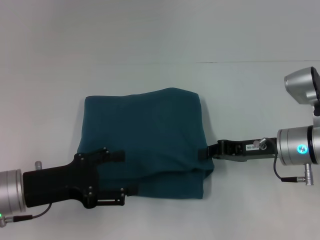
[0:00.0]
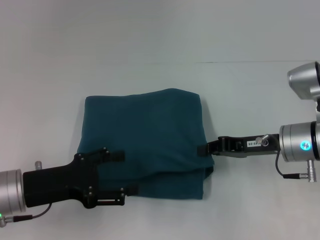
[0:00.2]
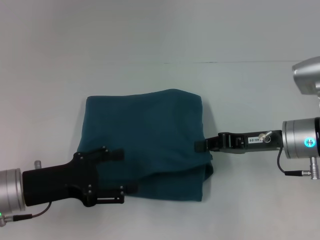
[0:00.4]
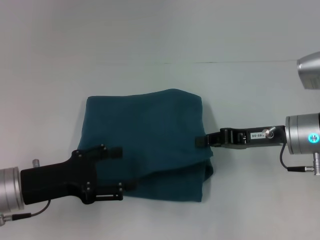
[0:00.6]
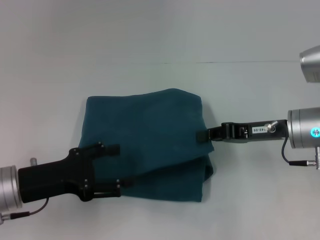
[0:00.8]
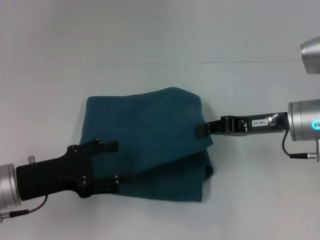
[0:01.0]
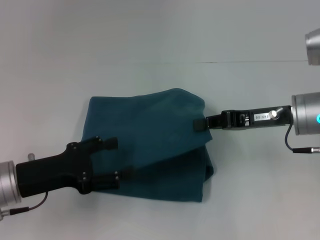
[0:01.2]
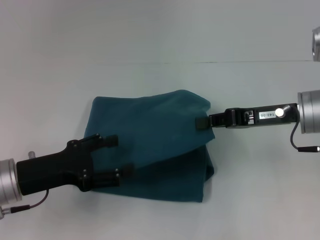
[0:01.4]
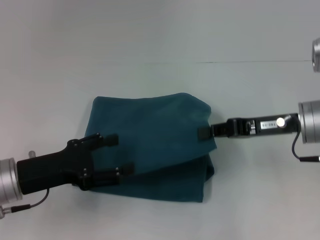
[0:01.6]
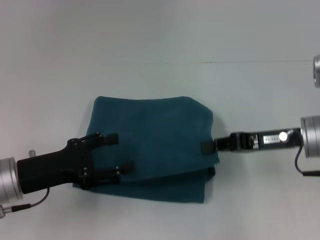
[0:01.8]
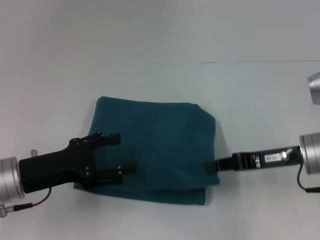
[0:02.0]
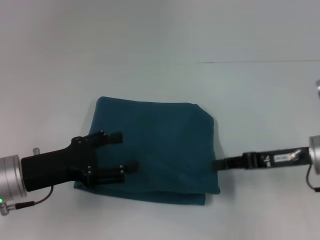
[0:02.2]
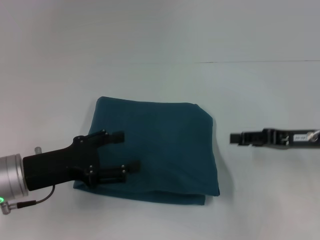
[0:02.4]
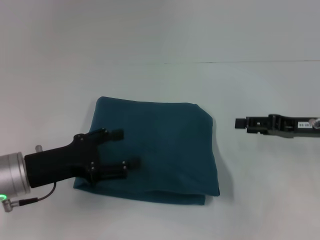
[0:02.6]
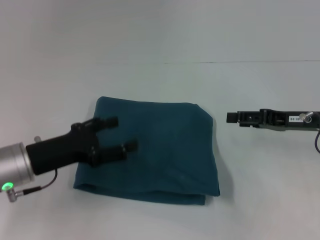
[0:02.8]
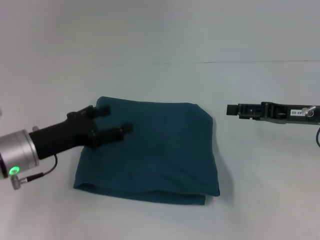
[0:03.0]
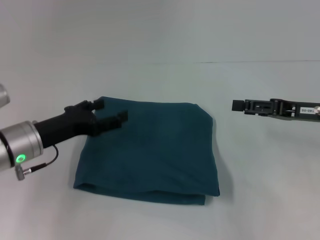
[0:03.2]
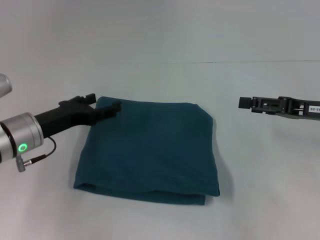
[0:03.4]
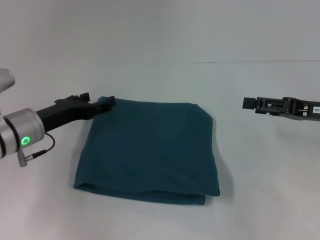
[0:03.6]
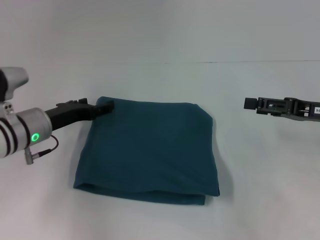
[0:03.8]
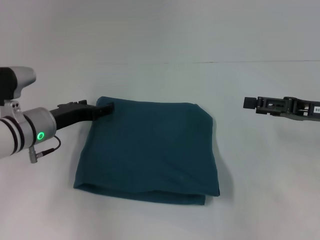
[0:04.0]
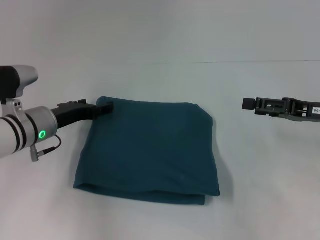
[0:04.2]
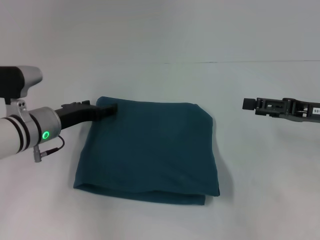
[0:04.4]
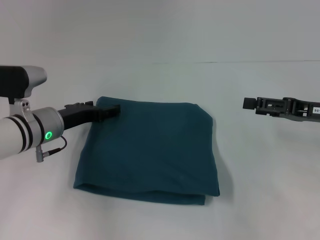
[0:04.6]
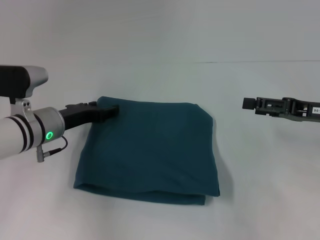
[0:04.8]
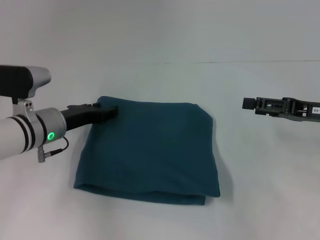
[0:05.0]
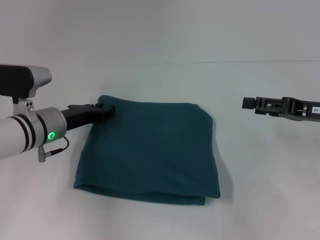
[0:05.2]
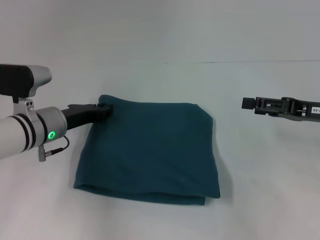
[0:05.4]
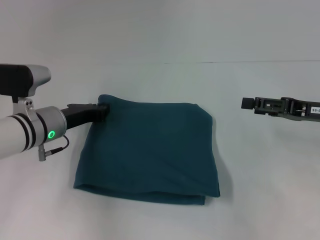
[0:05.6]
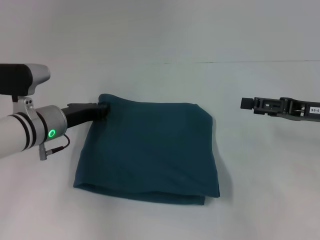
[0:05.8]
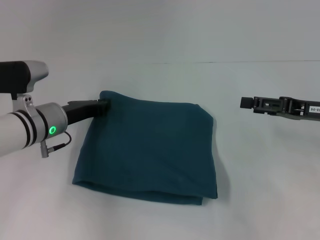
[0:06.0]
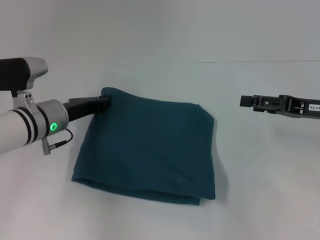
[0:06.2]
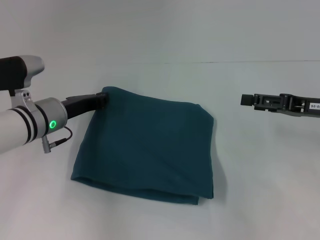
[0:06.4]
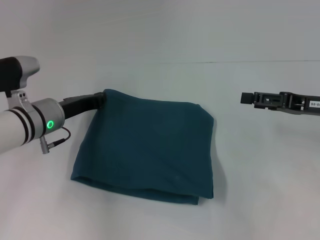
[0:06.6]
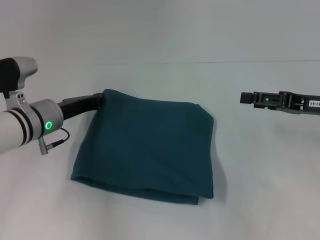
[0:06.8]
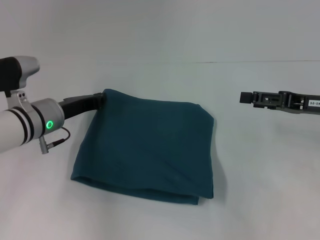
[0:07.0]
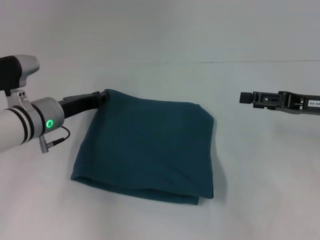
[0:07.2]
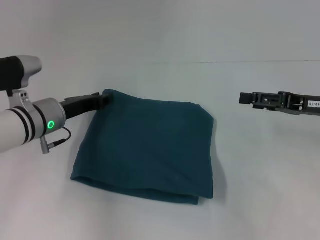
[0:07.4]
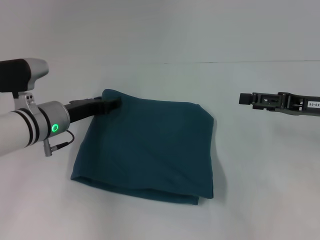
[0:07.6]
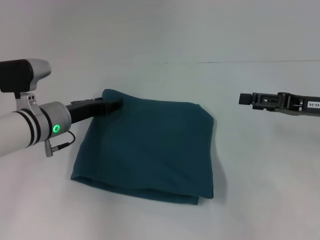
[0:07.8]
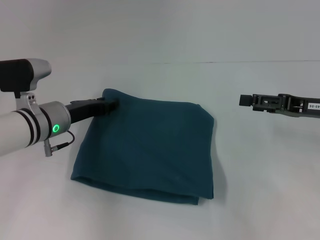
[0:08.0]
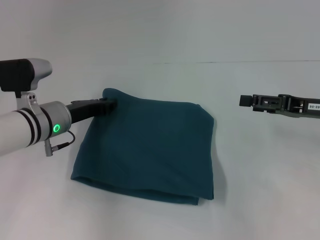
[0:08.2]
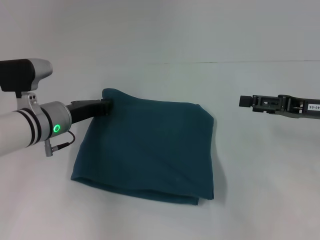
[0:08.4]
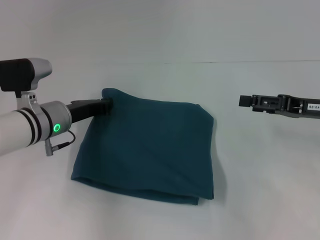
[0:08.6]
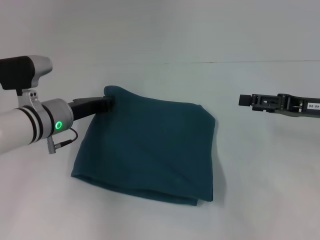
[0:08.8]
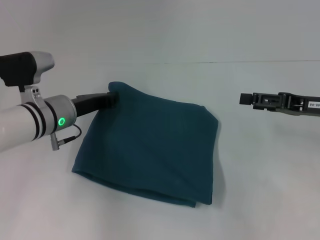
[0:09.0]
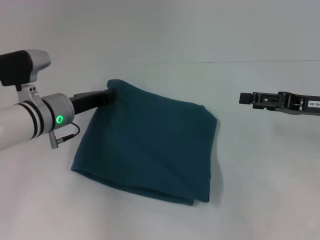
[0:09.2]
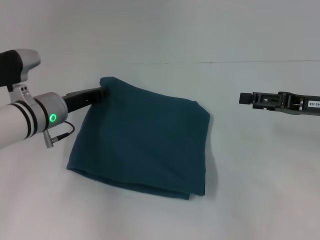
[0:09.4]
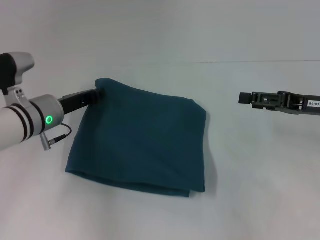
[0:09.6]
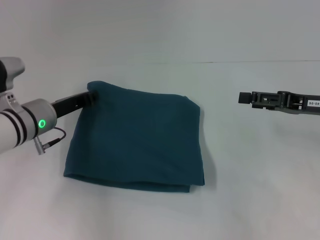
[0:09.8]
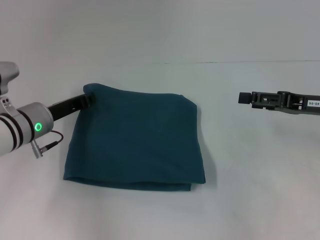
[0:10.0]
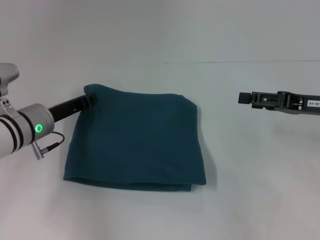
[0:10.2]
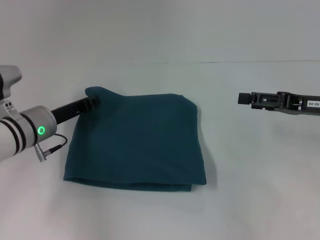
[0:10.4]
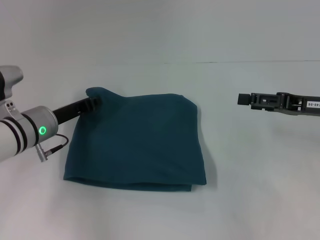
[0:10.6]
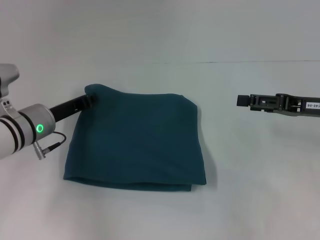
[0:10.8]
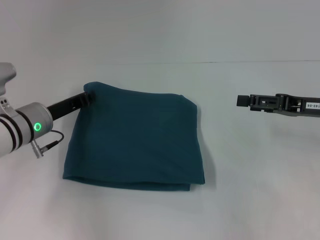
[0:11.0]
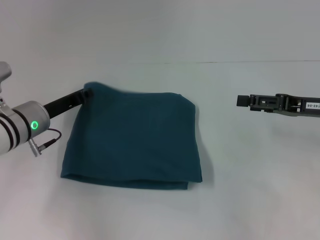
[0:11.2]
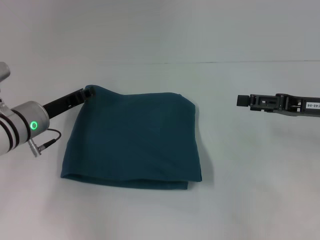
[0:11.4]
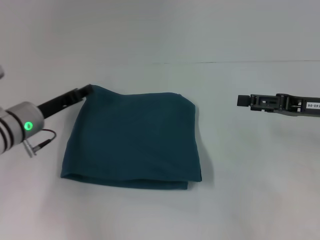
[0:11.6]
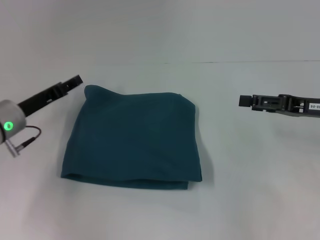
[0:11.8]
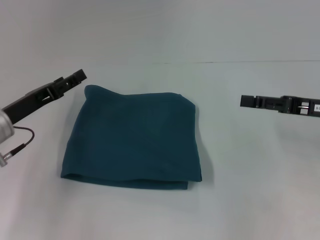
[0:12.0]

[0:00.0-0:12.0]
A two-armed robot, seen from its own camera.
0:00.0 to 0:01.6: The right gripper heads upward, covering roughly 5 cm.
0:01.6 to 0:03.0: The right gripper moves to the right, roughly 5 cm, and opens up.
0:03.0 to 0:04.4: The left gripper travels forward by about 5 cm.
0:04.4 to 0:06.0: The left gripper closes up.
0:06.0 to 0:07.6: The left gripper opens its fingers.
0:07.6 to 0:09.0: The left gripper closes its fingers.
0:09.0 to 0:10.4: There are only small adjustments of the grippers.
0:10.4 to 0:12.0: The left gripper moves about 5 cm, and opens up.

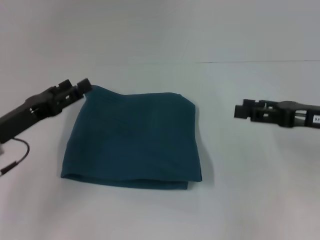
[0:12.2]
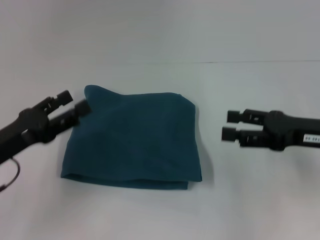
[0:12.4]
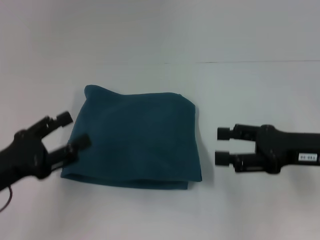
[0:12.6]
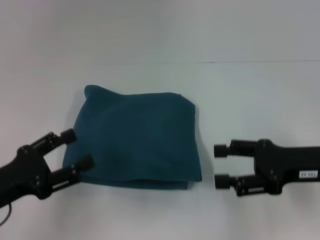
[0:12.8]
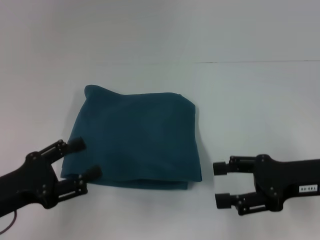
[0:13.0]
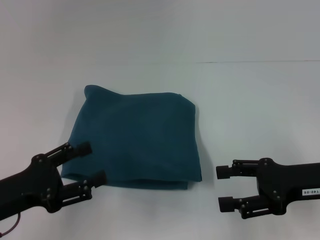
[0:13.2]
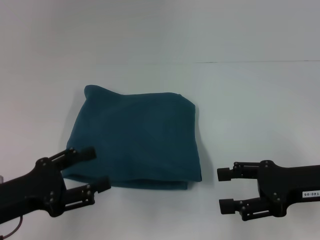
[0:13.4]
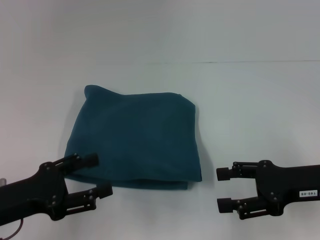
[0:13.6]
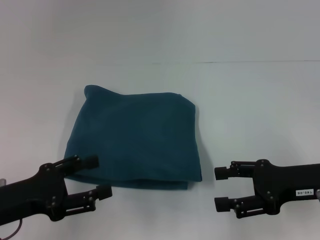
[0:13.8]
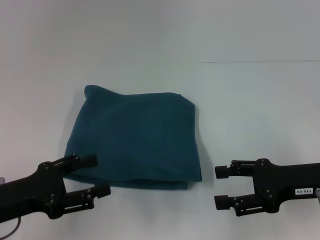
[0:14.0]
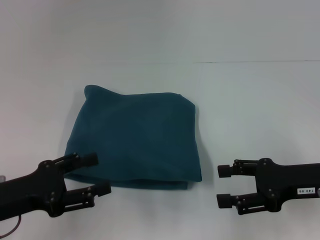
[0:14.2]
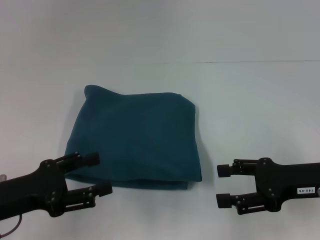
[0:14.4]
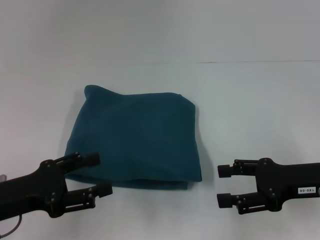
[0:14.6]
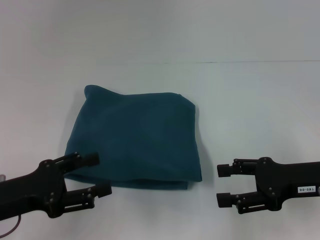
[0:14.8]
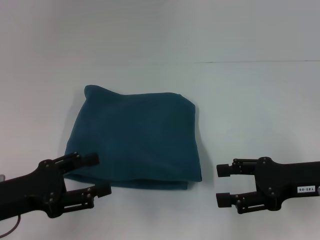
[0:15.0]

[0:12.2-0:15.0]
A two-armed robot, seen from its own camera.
0:12.2 to 0:13.6: The right gripper ends up some 5 cm from where it was. The left gripper heads backward, covering some 10 cm.
0:13.6 to 0:15.0: The two grippers keep their place.

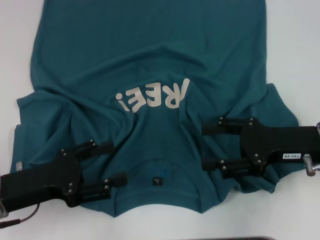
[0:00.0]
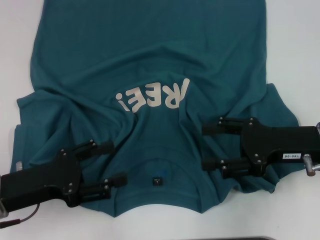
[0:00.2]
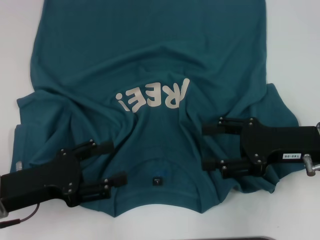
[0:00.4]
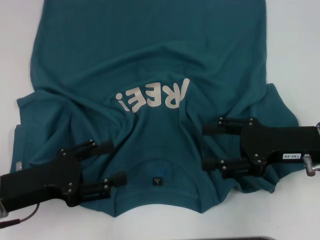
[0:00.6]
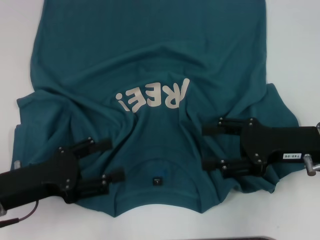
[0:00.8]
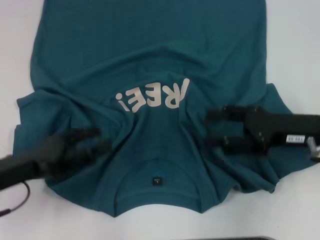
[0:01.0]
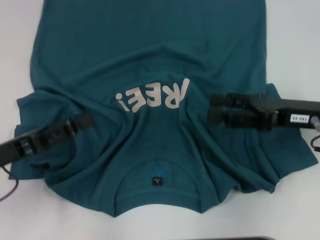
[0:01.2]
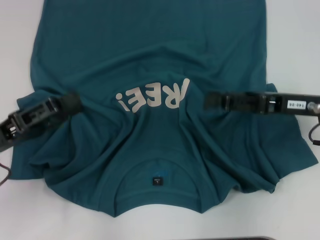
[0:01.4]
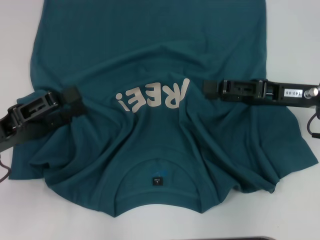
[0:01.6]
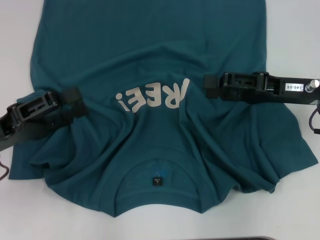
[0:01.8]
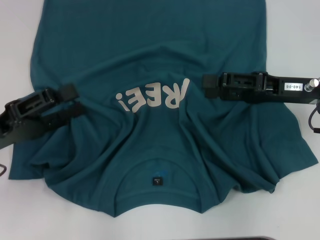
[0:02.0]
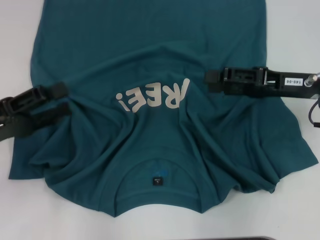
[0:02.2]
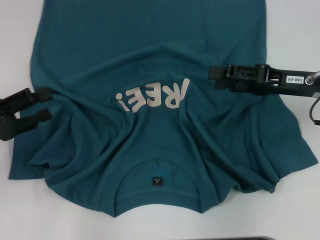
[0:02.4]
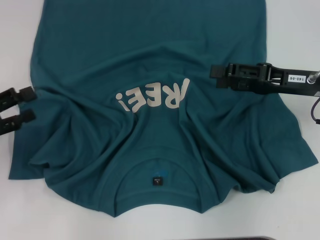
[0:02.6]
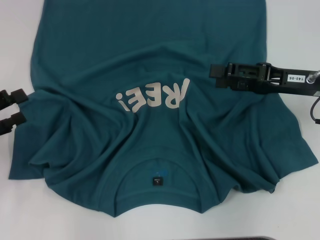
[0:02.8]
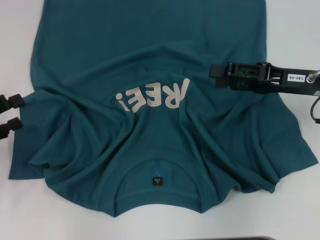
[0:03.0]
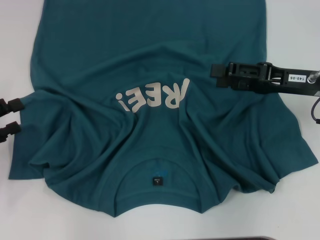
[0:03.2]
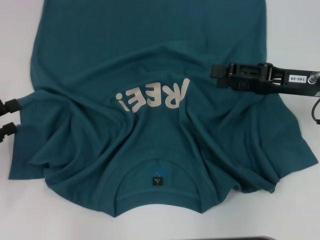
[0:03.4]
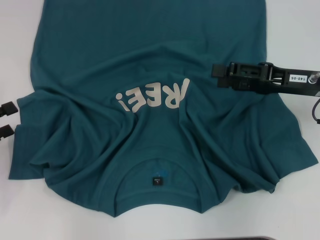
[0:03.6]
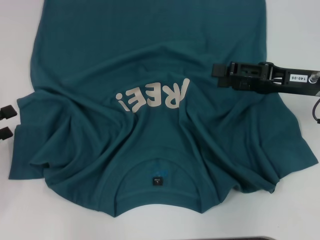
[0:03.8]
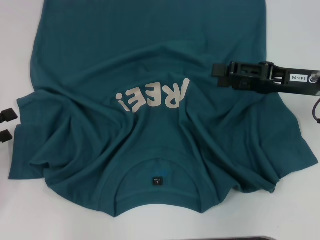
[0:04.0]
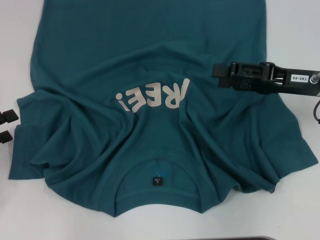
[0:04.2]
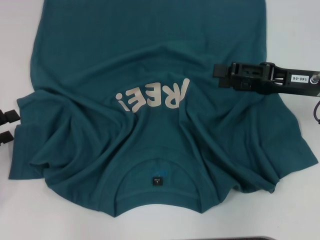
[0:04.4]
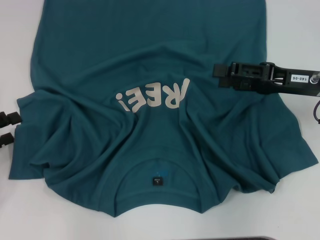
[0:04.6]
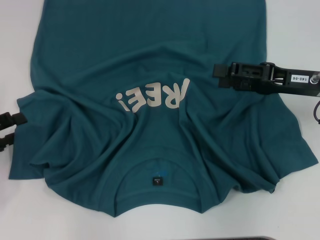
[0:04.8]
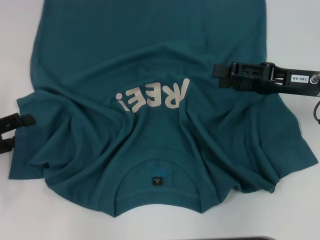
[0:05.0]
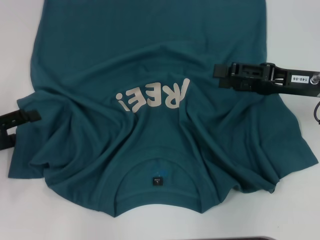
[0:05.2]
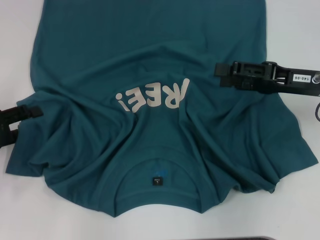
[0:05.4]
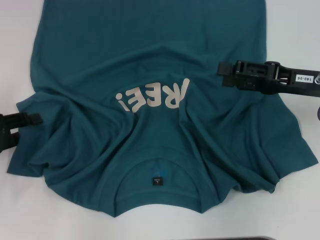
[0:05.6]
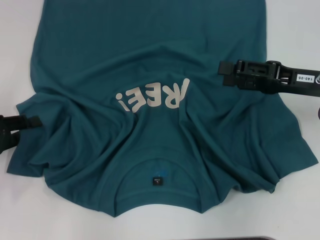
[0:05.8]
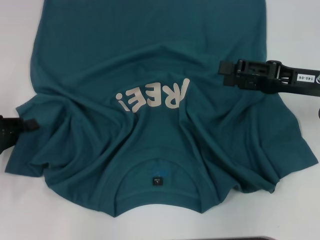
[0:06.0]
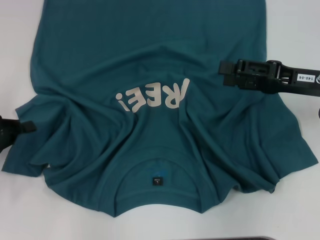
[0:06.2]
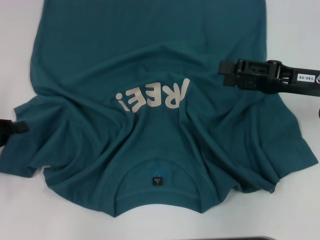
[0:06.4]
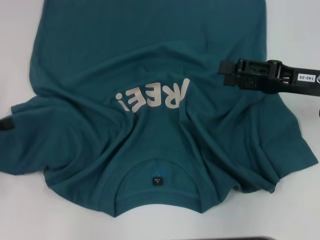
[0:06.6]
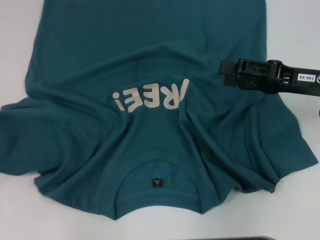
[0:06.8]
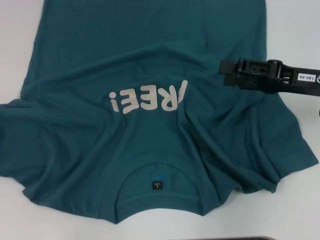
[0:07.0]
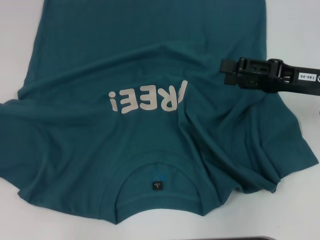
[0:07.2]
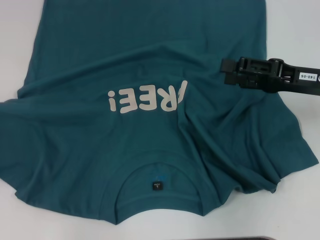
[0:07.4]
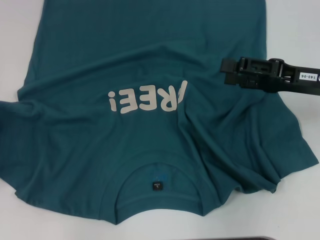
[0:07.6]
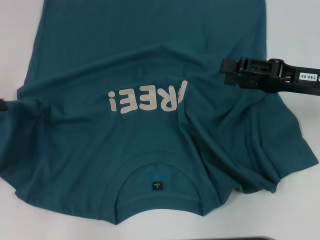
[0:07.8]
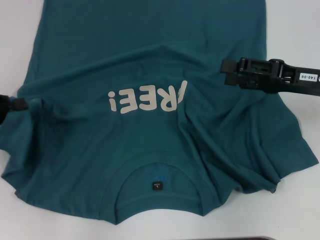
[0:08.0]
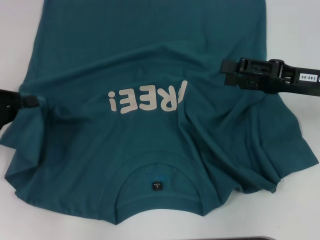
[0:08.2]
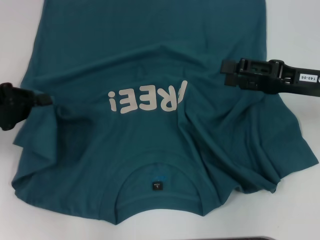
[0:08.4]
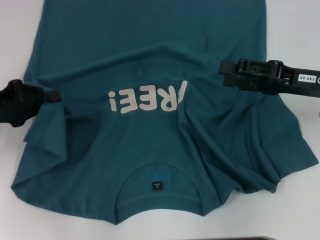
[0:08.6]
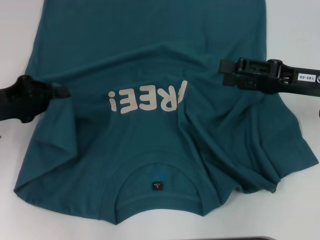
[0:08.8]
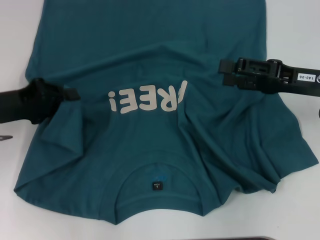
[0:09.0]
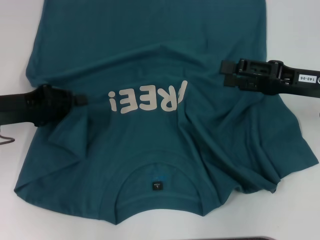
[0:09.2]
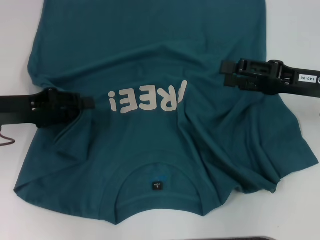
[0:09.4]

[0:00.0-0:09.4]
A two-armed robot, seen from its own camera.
0:00.0 to 0:01.6: The left gripper moves roughly 5 cm.
0:01.6 to 0:03.2: The left gripper is displaced to the left by some 10 cm.
0:03.2 to 0:04.8: The grippers make only small movements.
0:04.8 to 0:06.2: The left gripper closes up.
0:06.2 to 0:07.8: The left gripper shifts by about 5 cm.
0:07.8 to 0:09.4: The left gripper shifts some 10 cm to the right.
